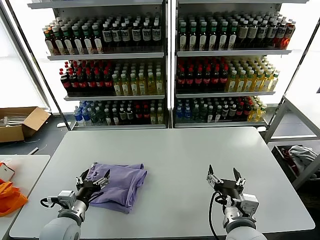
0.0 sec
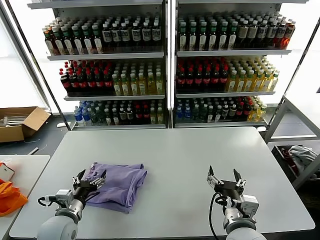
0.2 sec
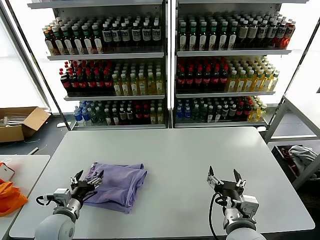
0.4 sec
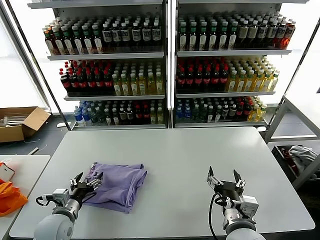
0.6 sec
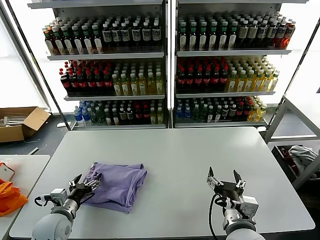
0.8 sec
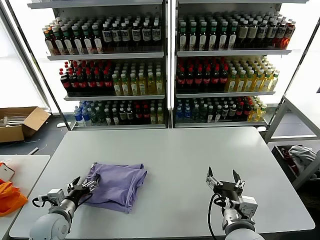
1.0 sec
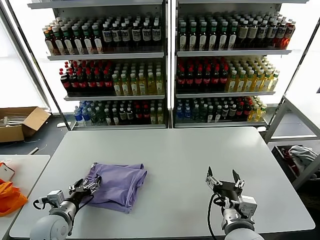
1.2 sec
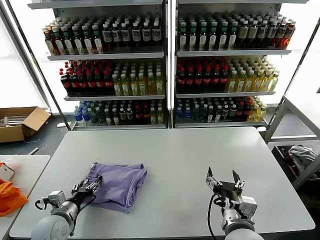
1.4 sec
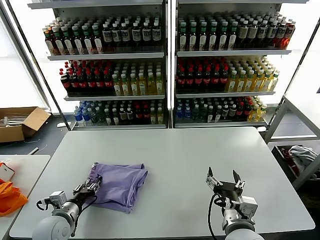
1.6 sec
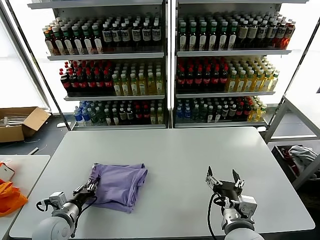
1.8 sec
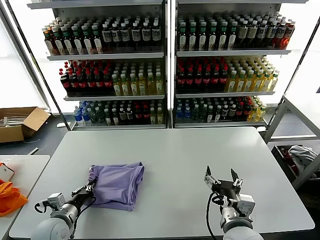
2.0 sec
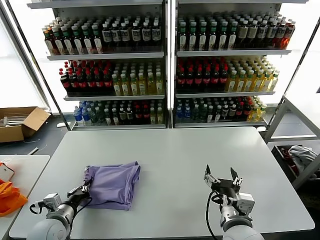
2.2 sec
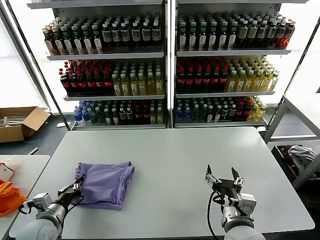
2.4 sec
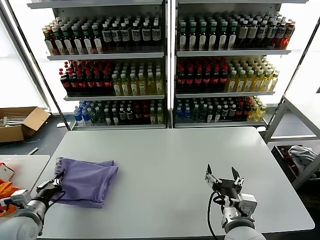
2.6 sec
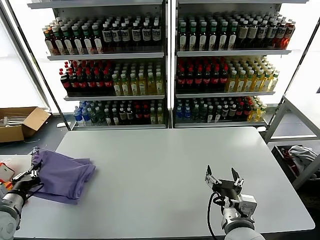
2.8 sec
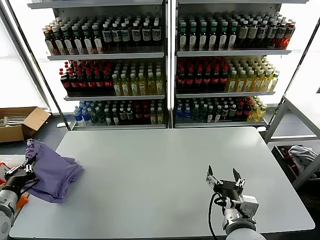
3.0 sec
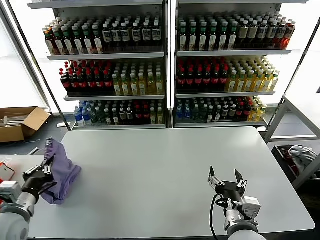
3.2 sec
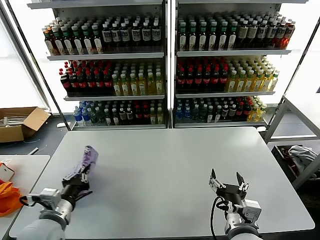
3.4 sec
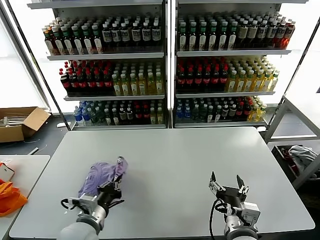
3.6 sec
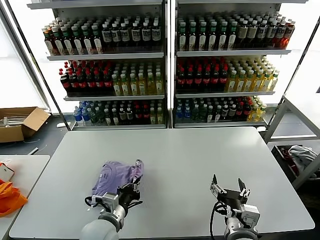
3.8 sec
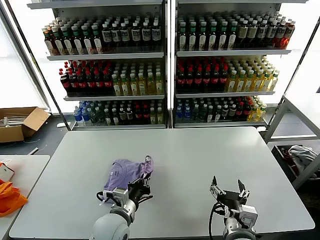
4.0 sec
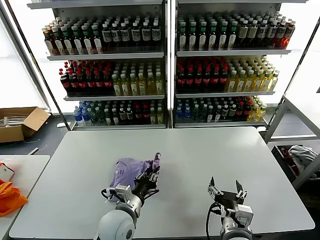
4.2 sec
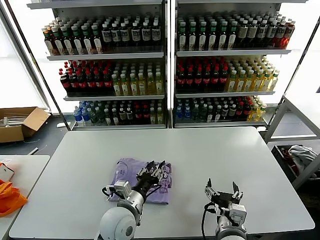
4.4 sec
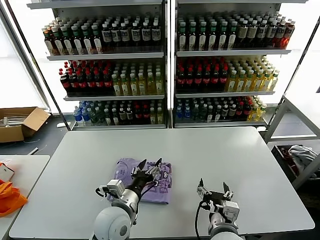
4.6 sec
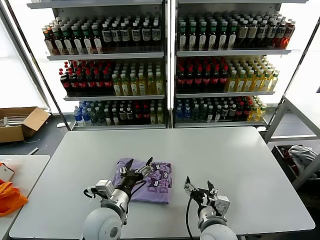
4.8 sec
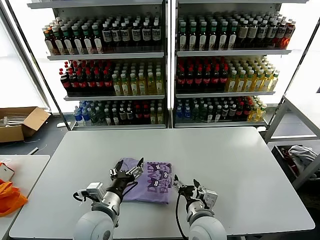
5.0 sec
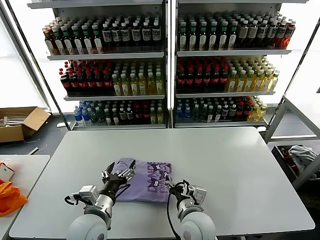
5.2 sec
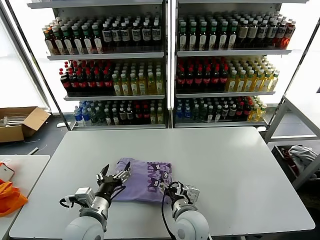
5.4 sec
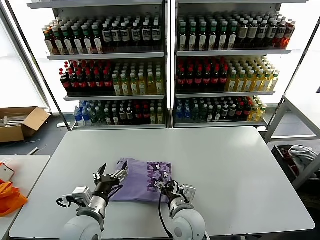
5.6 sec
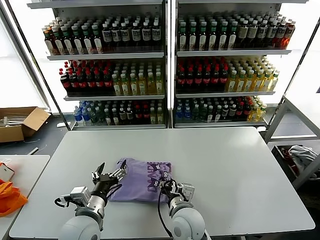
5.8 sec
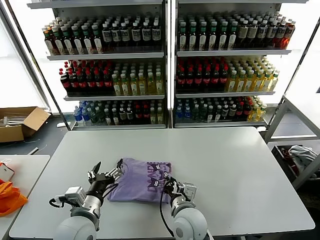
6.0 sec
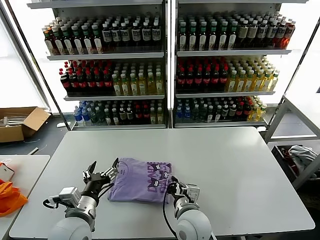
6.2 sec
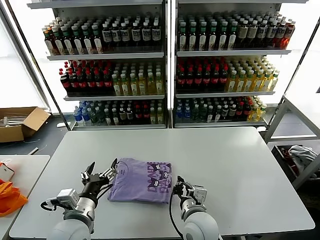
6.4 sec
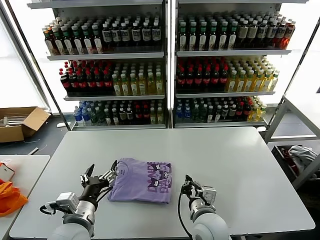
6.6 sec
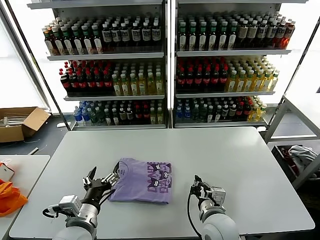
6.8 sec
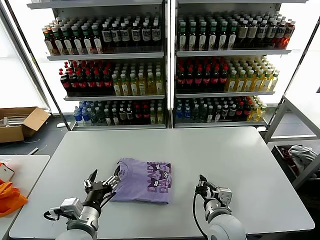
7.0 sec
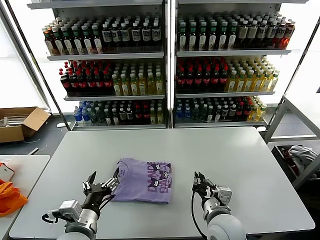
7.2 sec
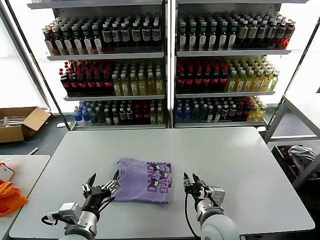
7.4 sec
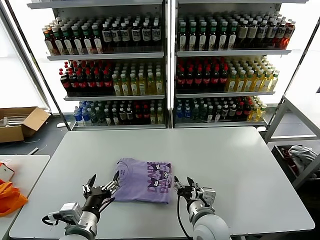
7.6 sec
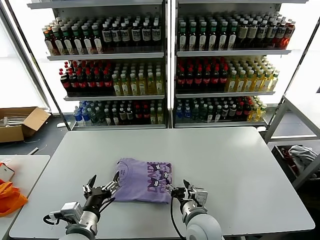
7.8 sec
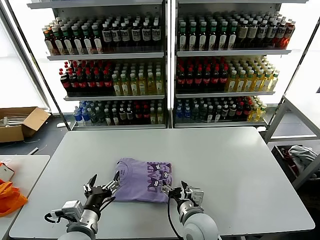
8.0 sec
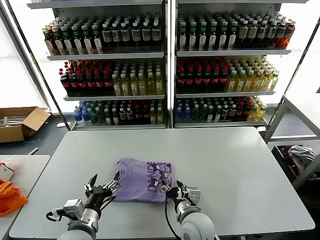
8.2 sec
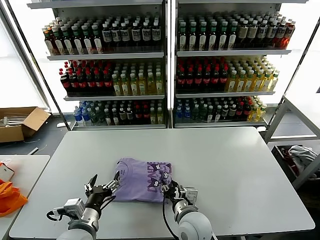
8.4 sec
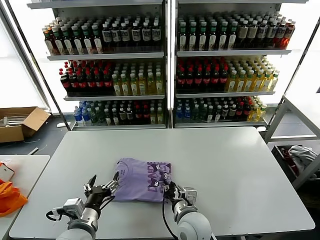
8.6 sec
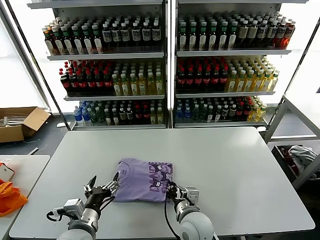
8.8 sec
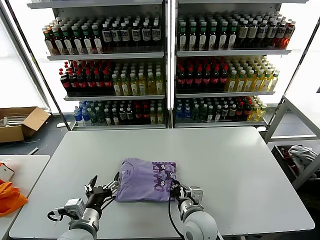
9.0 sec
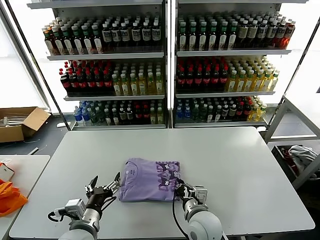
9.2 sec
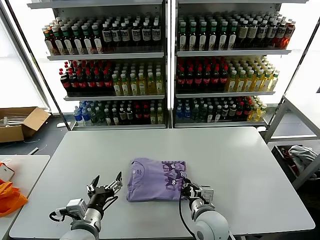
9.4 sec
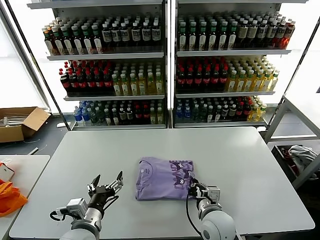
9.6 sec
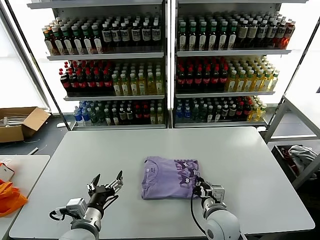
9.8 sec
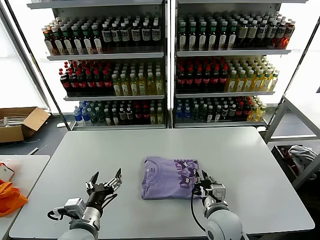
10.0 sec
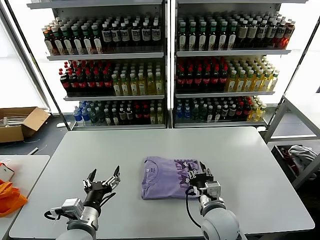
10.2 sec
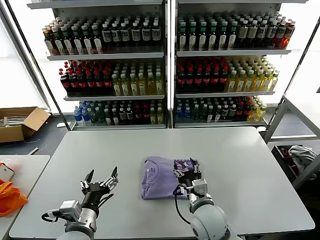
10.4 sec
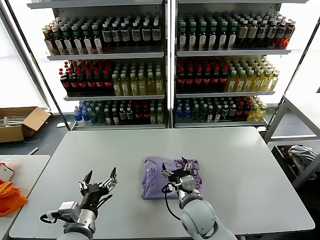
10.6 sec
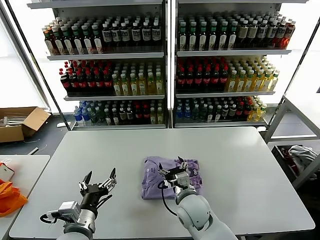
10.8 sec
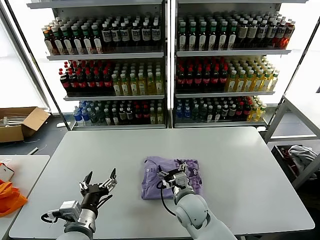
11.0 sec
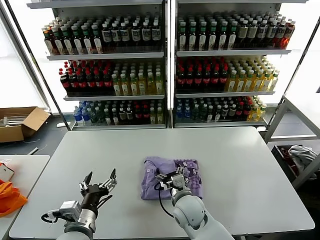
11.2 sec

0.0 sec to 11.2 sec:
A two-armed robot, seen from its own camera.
Task of the whole recording: fold and organize the clothes.
Step, 0.0 sec to 4.2 sec: Flip the folded clothes over with left gripper.
0.0 sec to 1.6 sec: The left gripper travels to the left by some 5 cm, and closes its fingers.
1.6 sec to 3.2 sec: The left gripper shifts roughly 15 cm upward and to the left, and closes.
3.2 sec to 4.8 sec: The left gripper shifts roughly 25 cm to the right, and opens its fingers. Meanwhile the right gripper shifts about 5 cm to the left.
4.8 sec to 6.4 sec: The left gripper goes roughly 5 cm to the left; the right gripper closes.
6.4 sec to 8.0 sec: The right gripper opens its fingers.
8.0 sec to 9.6 sec: The right gripper goes approximately 5 cm to the right, and closes up.
9.6 sec to 11.2 sec: The right gripper goes some 10 cm to the left and forward, and opens up.

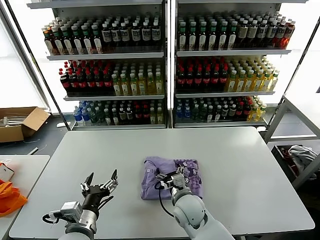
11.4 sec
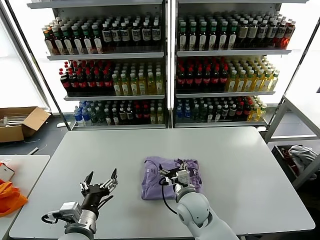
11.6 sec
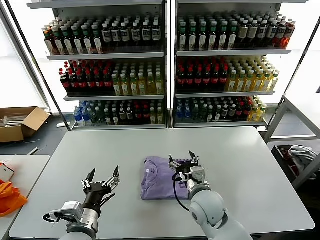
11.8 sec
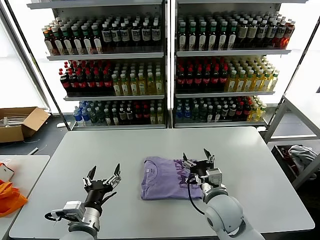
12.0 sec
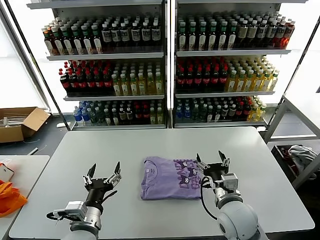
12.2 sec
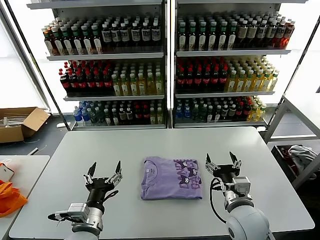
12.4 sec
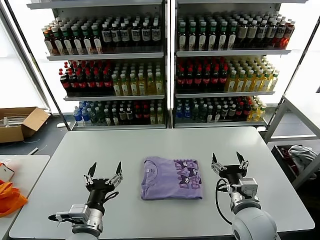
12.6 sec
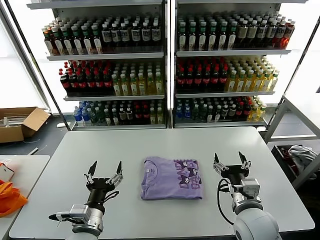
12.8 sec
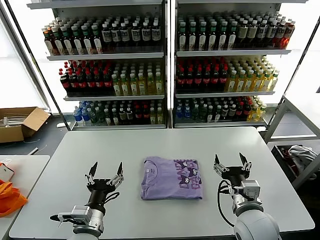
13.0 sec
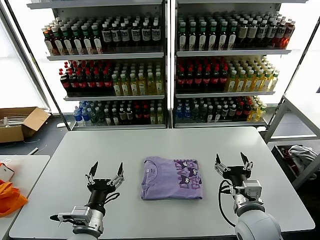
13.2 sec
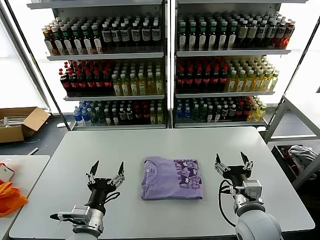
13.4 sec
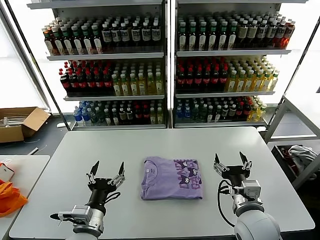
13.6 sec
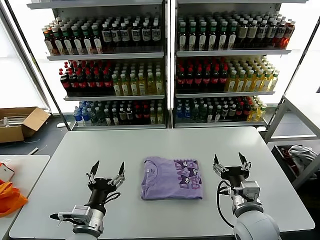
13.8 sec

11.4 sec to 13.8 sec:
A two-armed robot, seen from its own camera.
Task of the whole recording: fold and organize the clothes.
11.4 sec to 12.6 sec: The right gripper is displaced to the right, upward and backward by roughly 20 cm.
12.6 sec to 13.8 sec: Both grippers stay about where they are.
